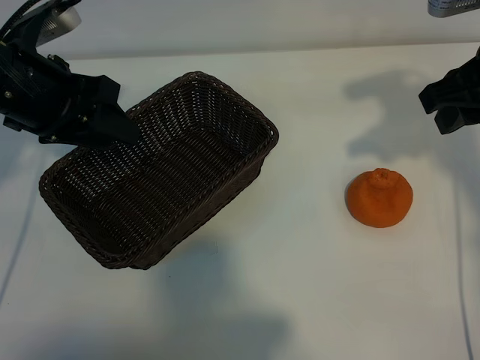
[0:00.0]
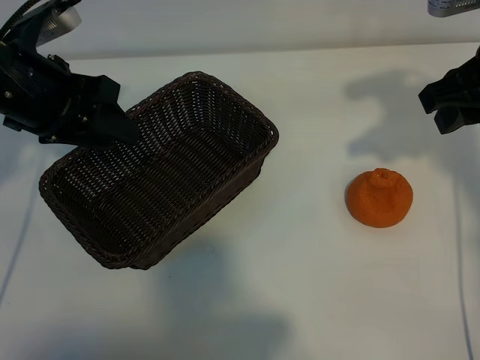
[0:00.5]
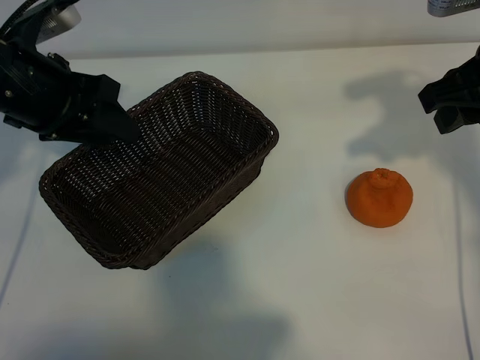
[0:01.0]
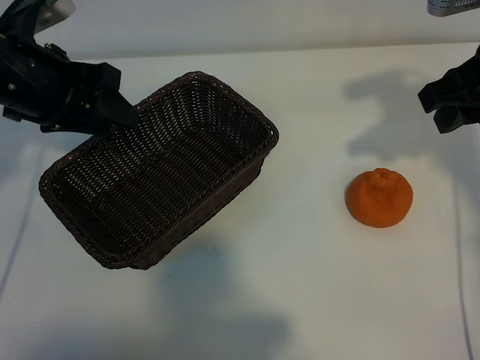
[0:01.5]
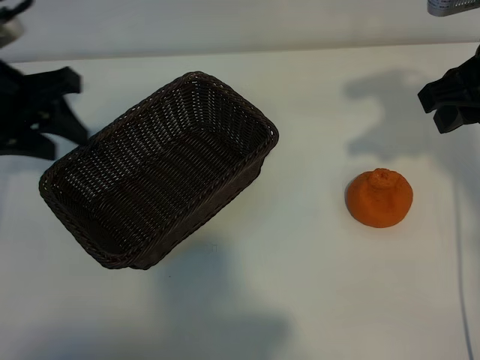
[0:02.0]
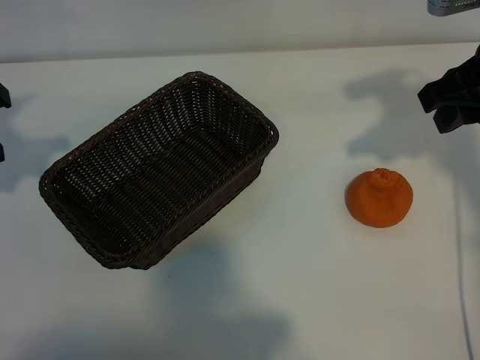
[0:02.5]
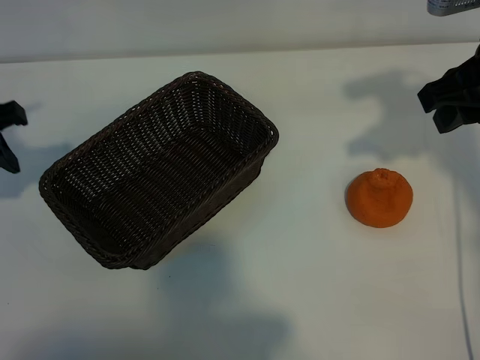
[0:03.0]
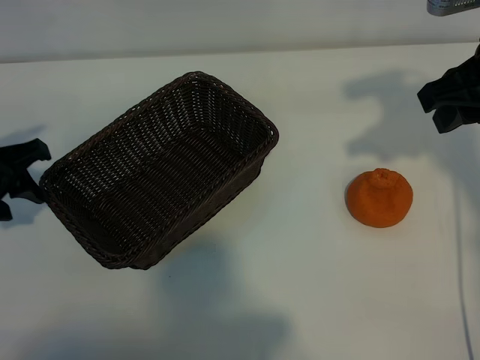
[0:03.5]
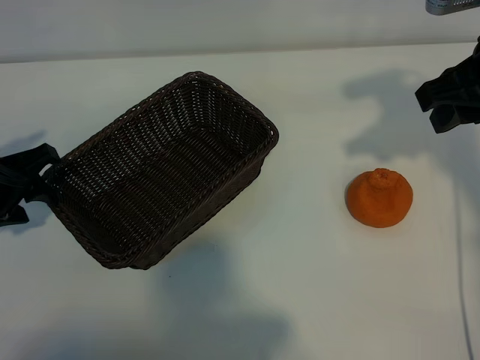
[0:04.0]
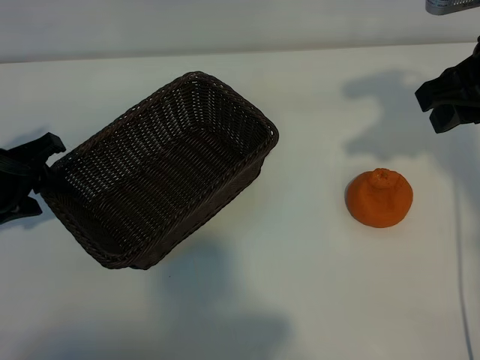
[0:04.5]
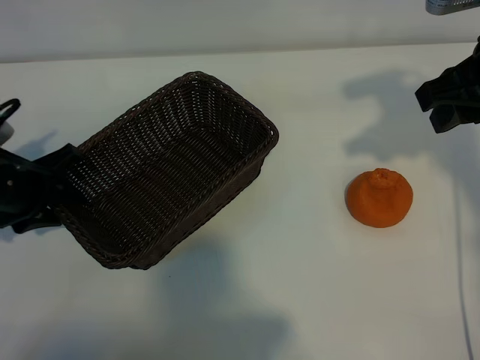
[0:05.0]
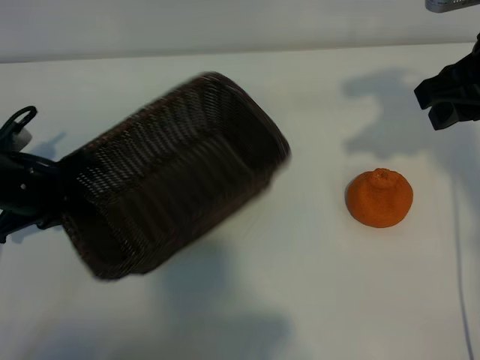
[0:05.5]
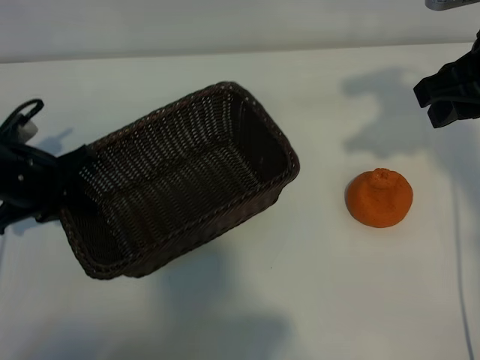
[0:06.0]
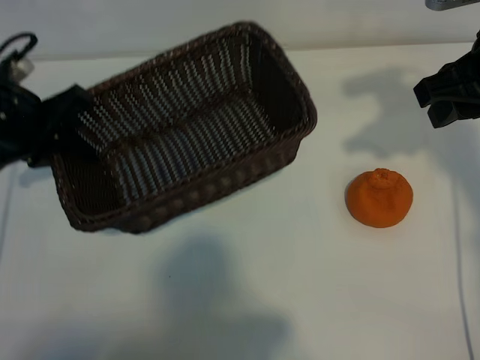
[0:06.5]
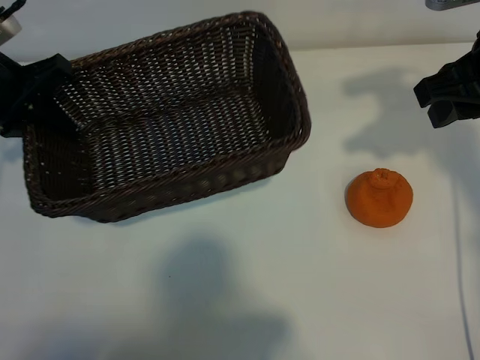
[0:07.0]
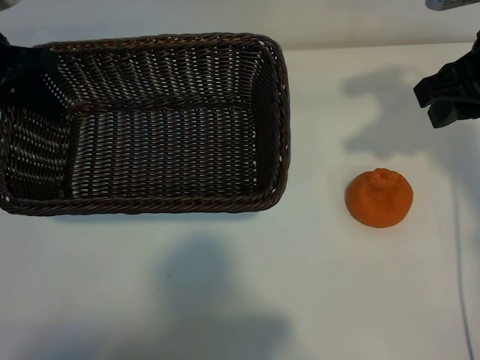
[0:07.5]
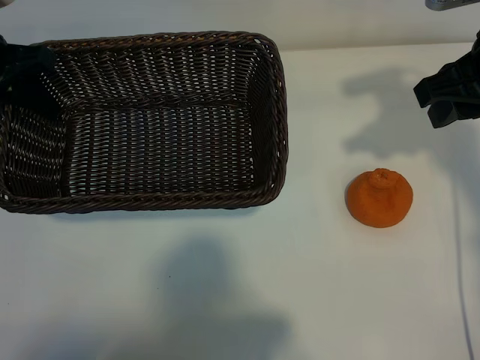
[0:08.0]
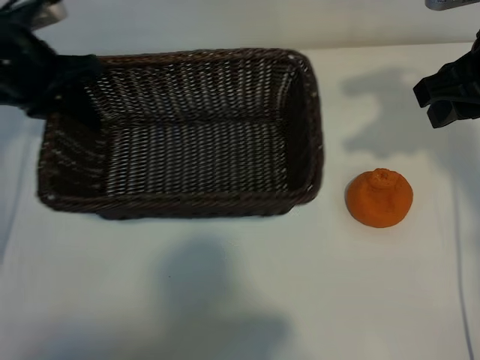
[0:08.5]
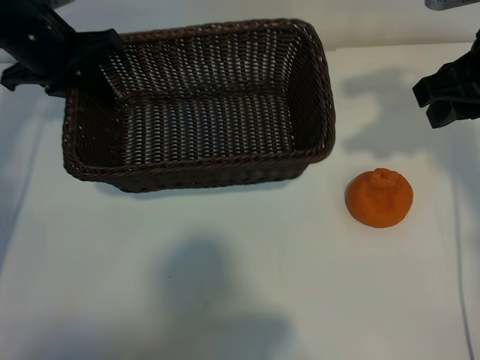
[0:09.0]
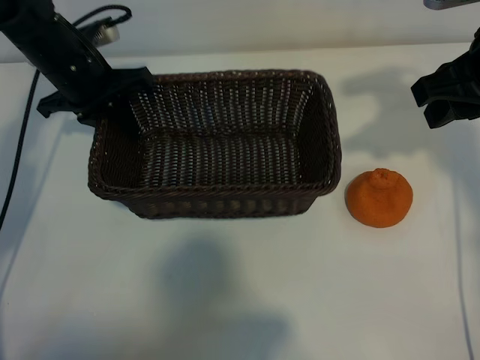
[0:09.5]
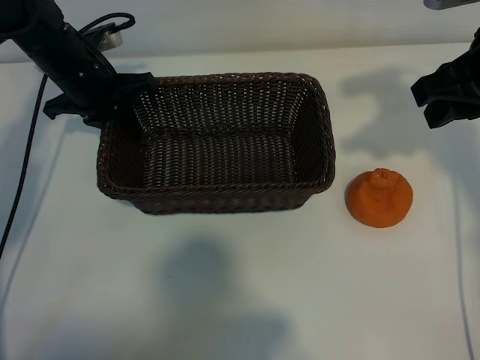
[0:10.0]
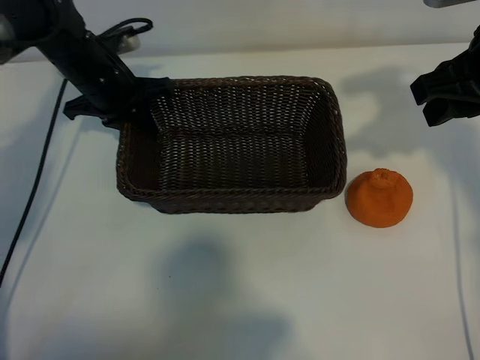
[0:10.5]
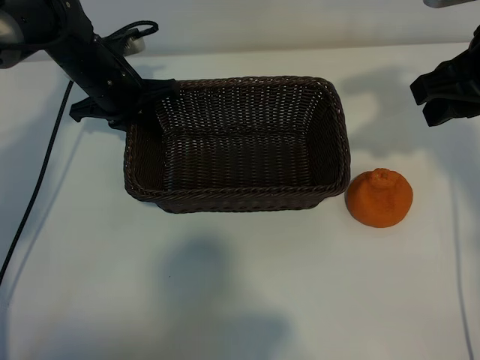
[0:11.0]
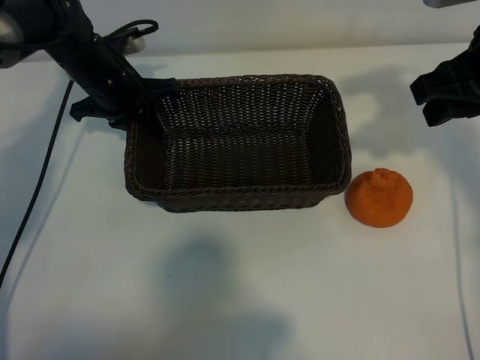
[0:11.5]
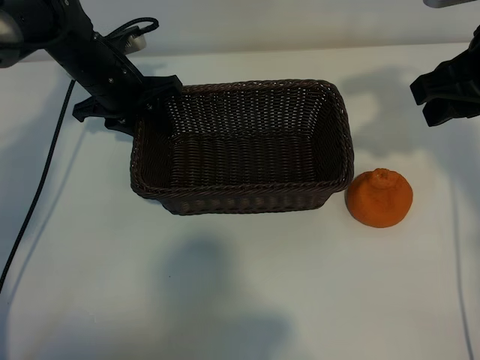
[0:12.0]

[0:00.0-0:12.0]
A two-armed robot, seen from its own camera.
Task of the whole recording: pick up the orange and put it into the basket.
Step, 0:01.0 to 0:05.5: Grasp the basket with left gripper.
Step, 0:06.0 to 0:11.5: Place the basket in the center of view with left gripper.

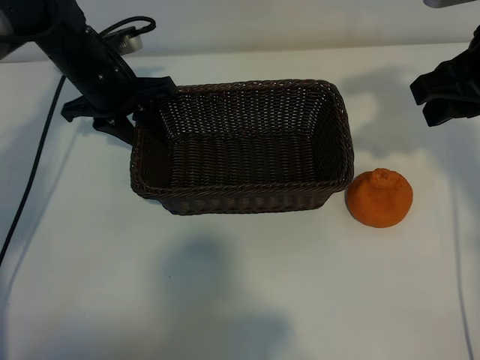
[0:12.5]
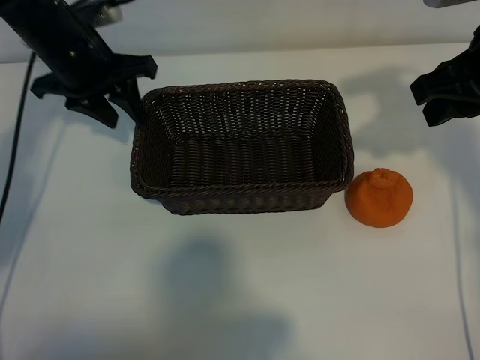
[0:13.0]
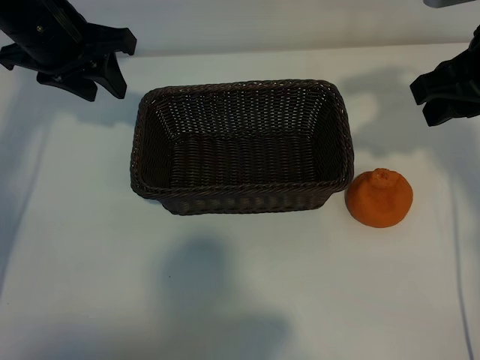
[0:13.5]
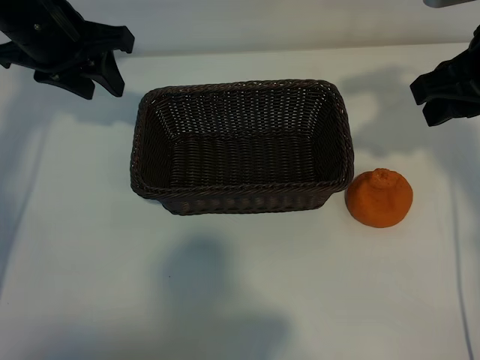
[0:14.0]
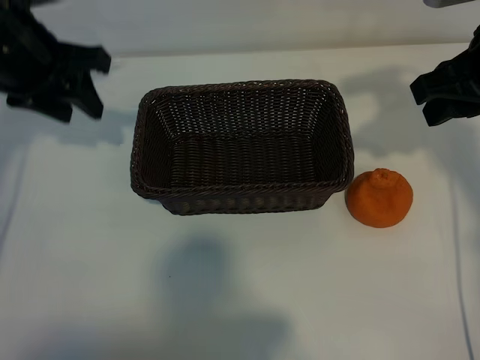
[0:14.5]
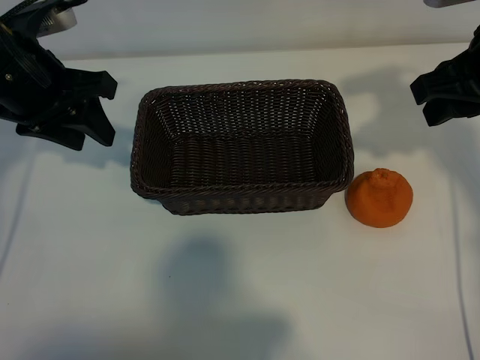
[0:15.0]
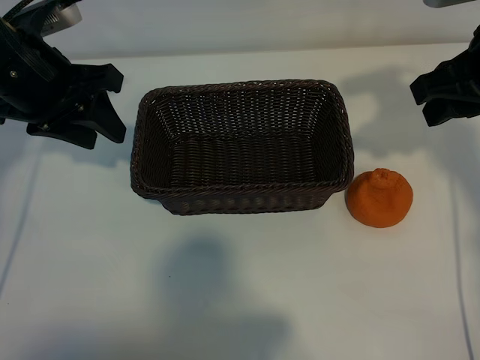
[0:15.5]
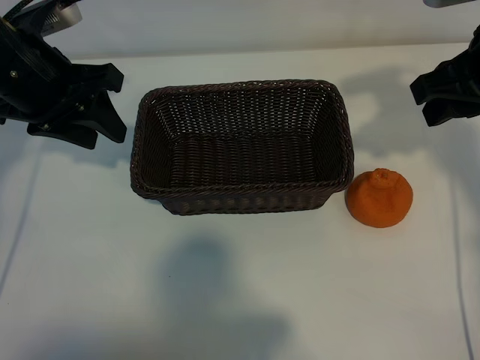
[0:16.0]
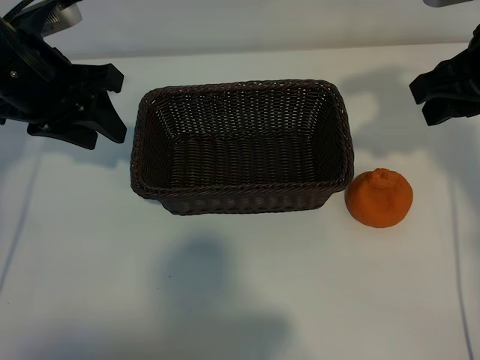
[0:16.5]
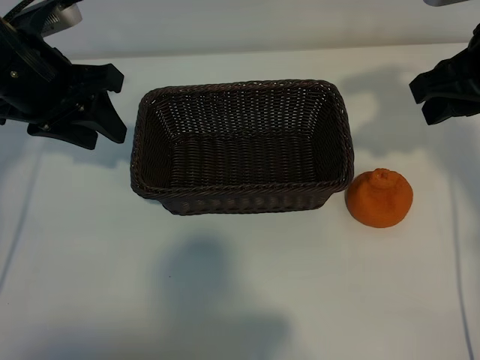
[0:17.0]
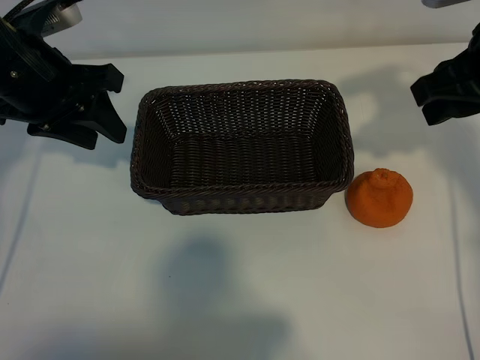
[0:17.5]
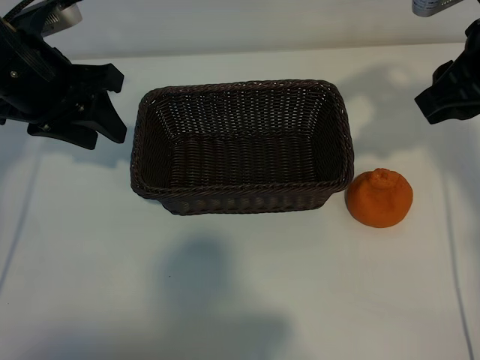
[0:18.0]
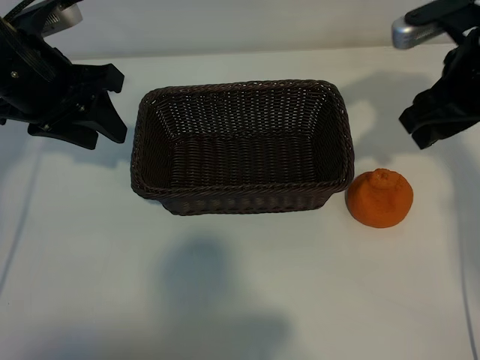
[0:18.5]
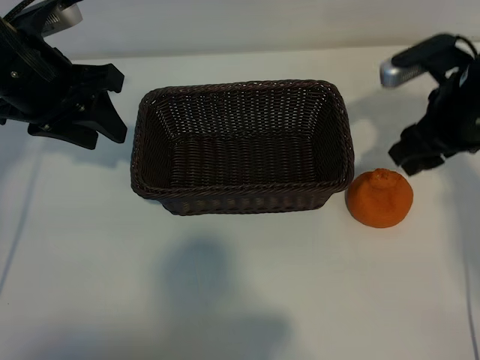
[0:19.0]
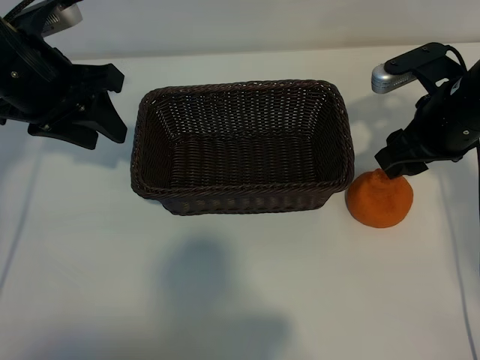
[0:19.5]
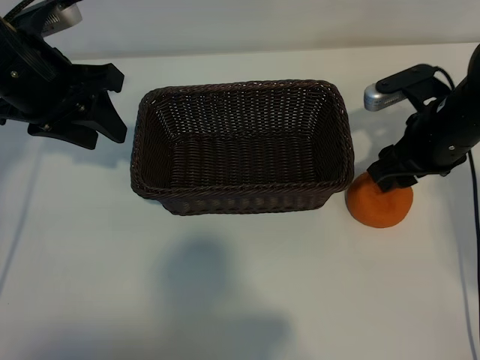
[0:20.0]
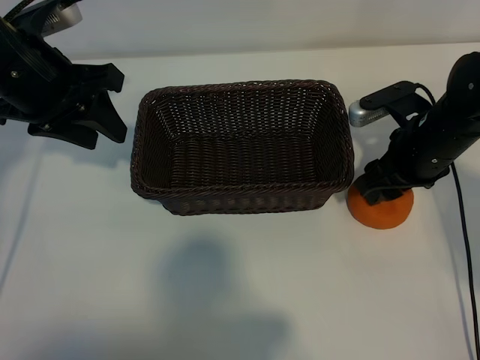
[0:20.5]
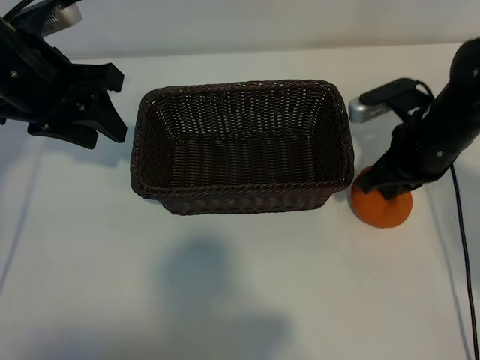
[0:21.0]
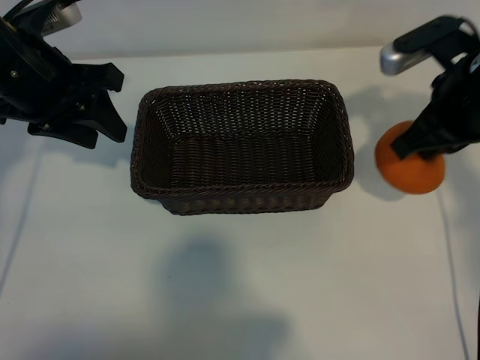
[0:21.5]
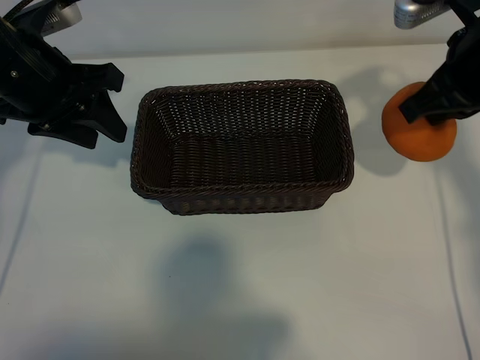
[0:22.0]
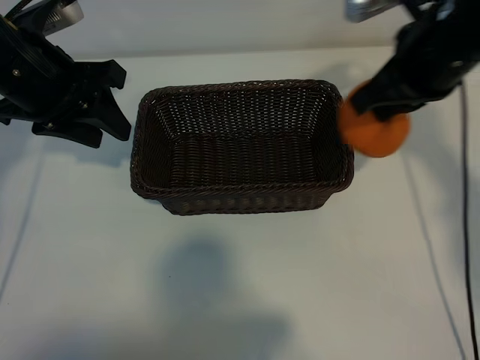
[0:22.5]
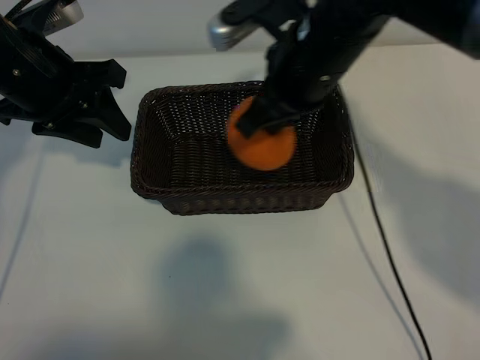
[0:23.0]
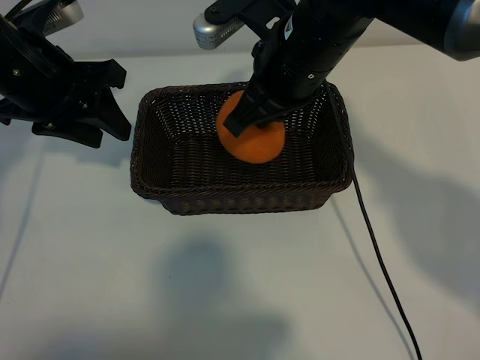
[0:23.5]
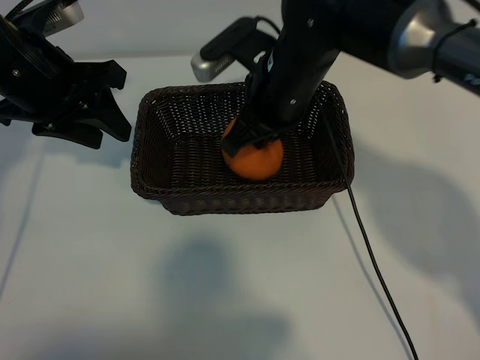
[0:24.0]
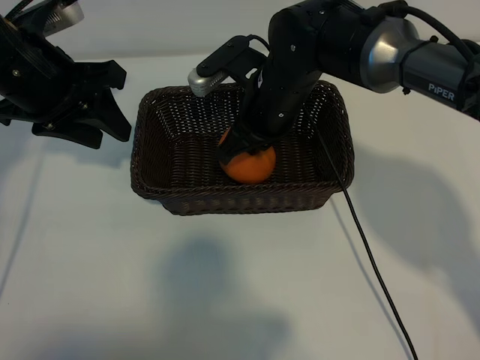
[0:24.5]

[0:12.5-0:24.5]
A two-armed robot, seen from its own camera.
Task of the whole recording: pick up the orange and put it into the basket.
Step, 0:12.5 to 0:20.5: Grasp the orange with right gripper.

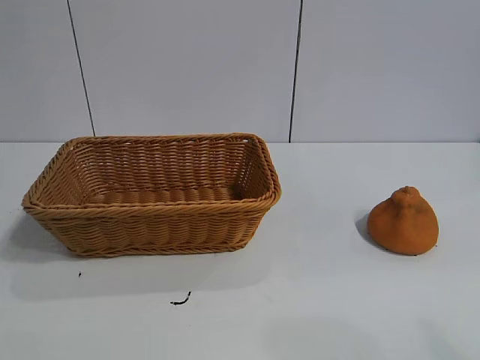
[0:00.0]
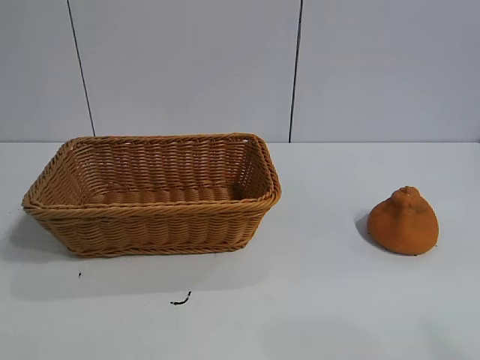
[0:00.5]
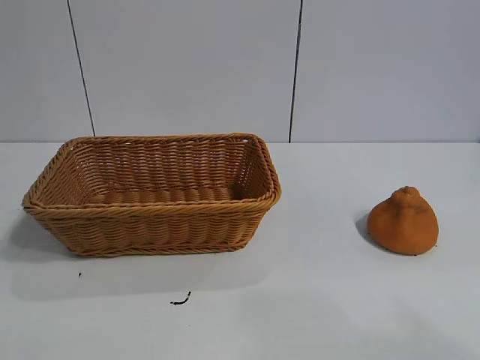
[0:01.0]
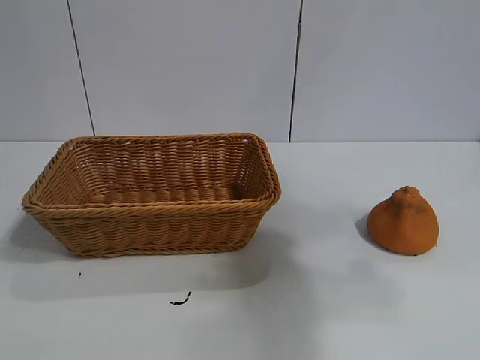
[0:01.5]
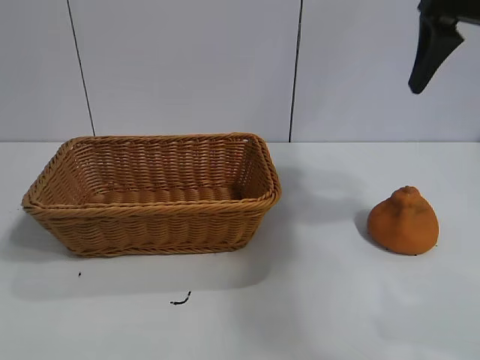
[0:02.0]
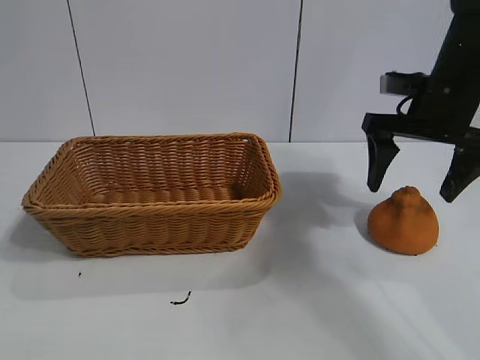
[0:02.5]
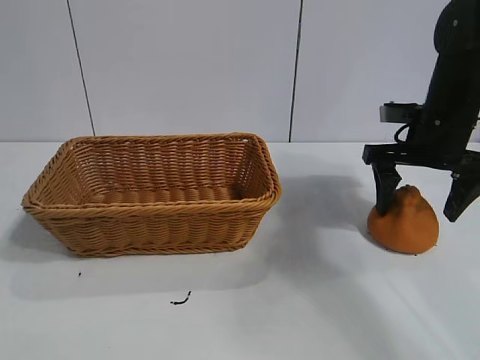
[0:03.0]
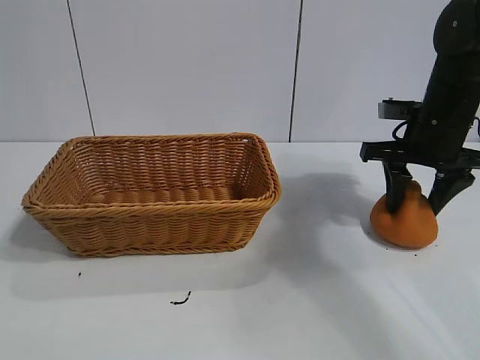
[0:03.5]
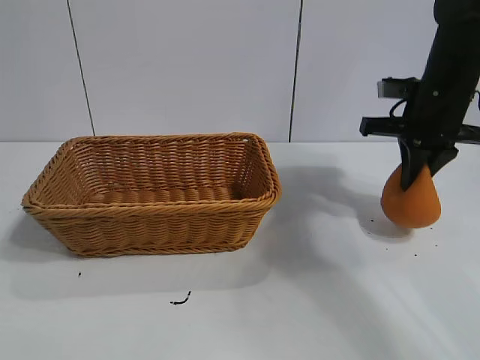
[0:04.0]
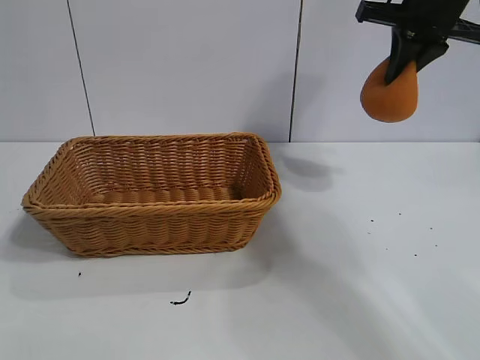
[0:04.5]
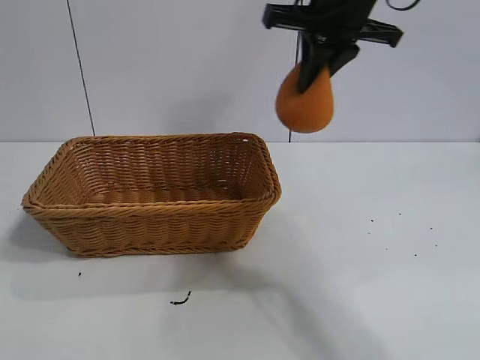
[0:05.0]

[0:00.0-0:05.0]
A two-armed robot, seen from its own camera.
Task of the whole recording: pick up the orange and put it into the basket.
Step, 0:01.0 to 0:03.5: Grasp the orange with right gripper.
